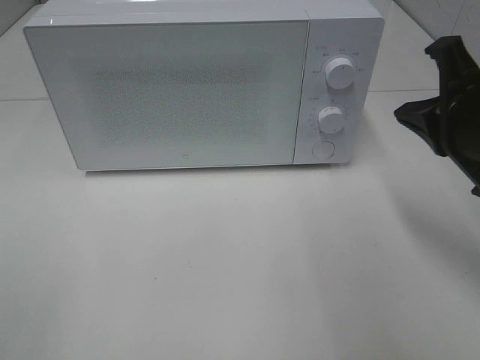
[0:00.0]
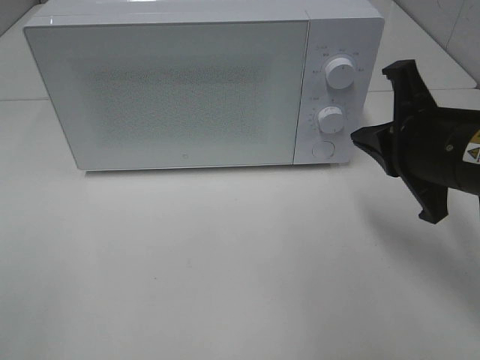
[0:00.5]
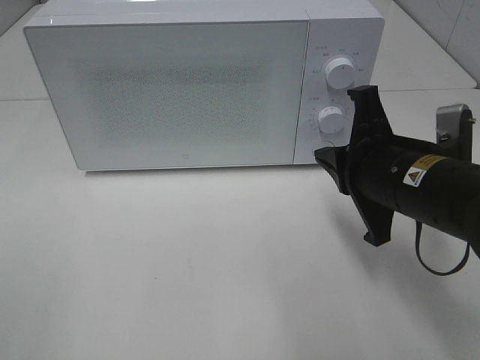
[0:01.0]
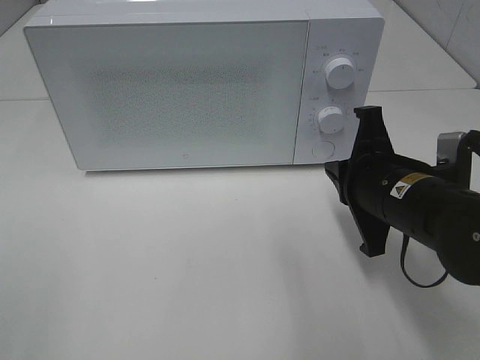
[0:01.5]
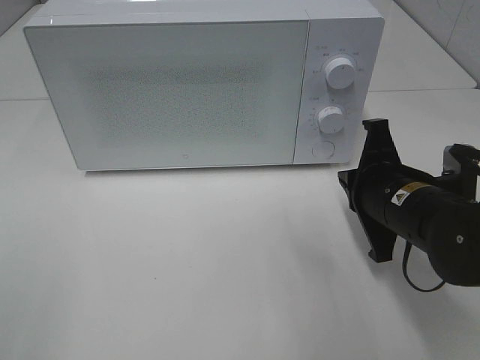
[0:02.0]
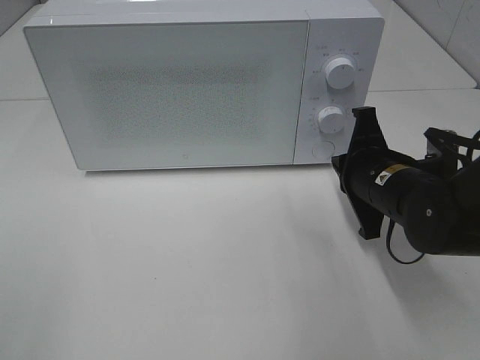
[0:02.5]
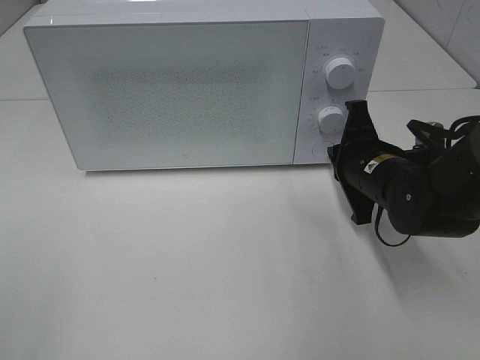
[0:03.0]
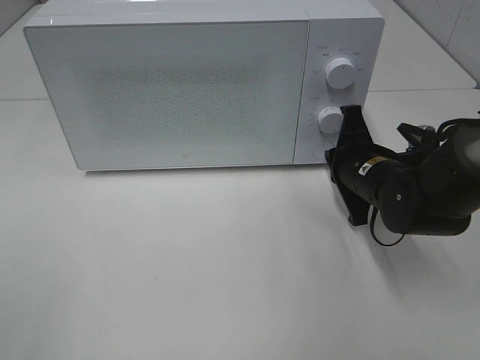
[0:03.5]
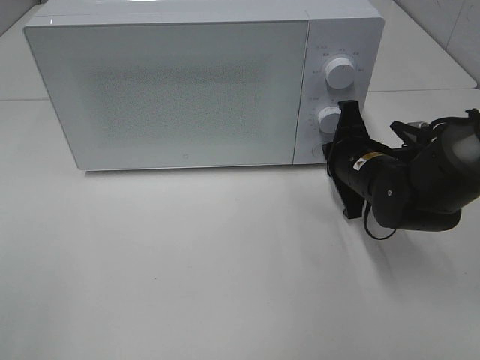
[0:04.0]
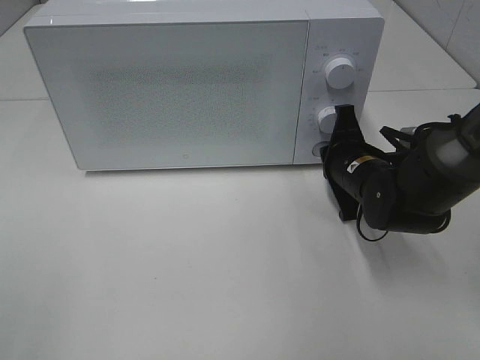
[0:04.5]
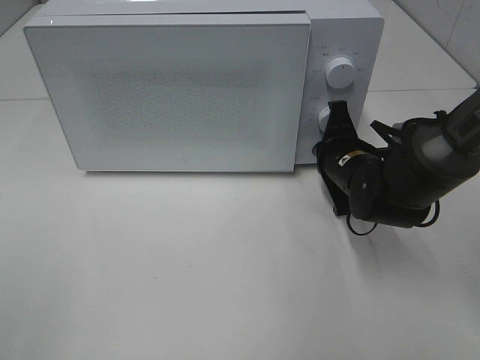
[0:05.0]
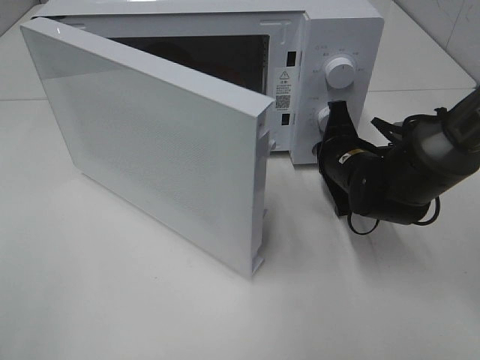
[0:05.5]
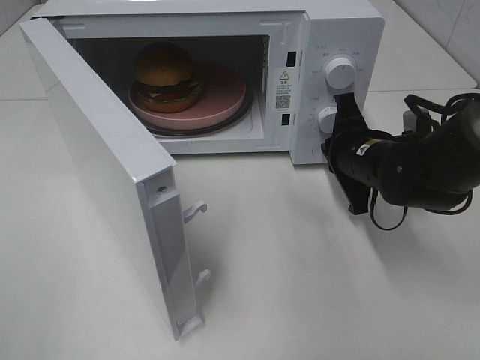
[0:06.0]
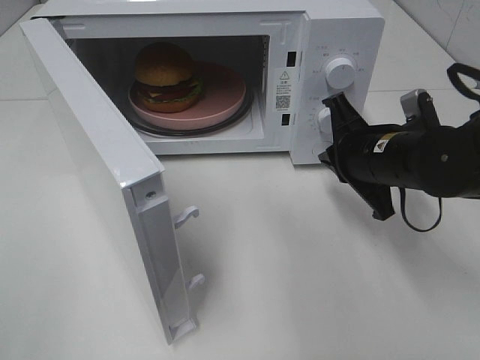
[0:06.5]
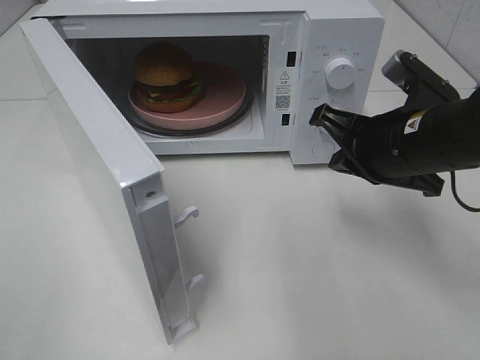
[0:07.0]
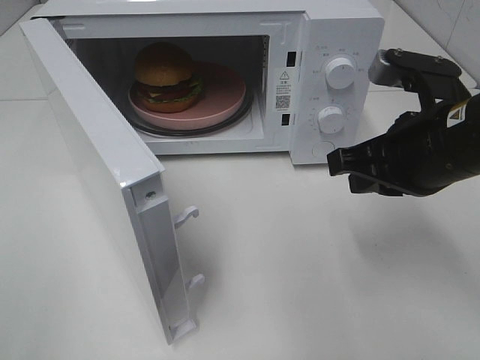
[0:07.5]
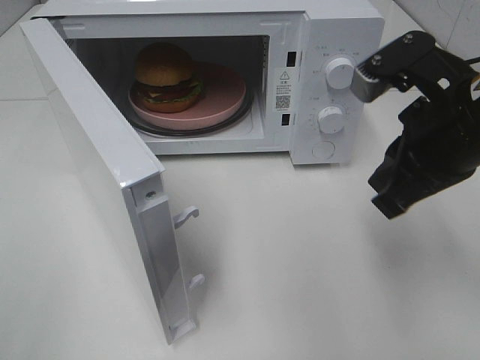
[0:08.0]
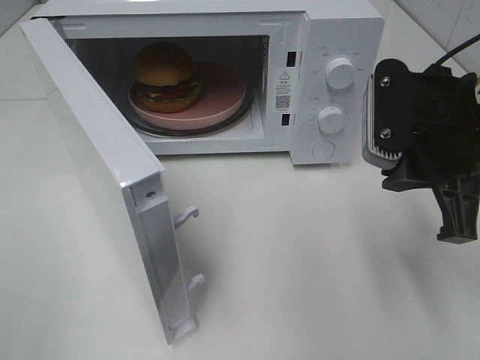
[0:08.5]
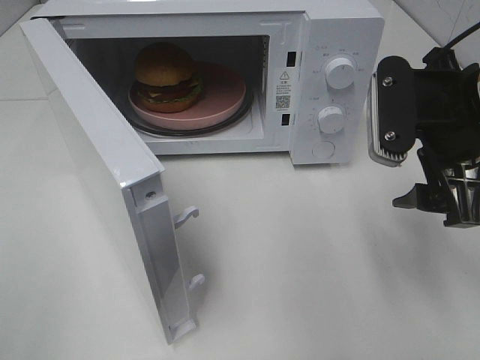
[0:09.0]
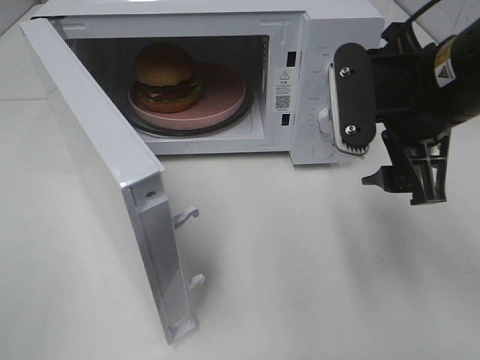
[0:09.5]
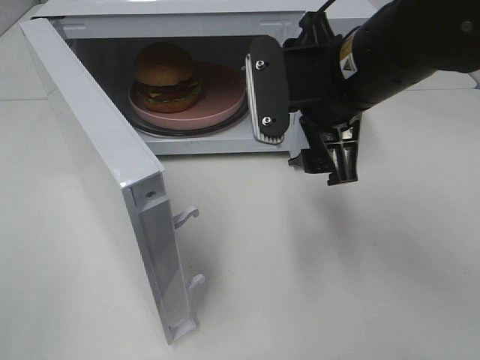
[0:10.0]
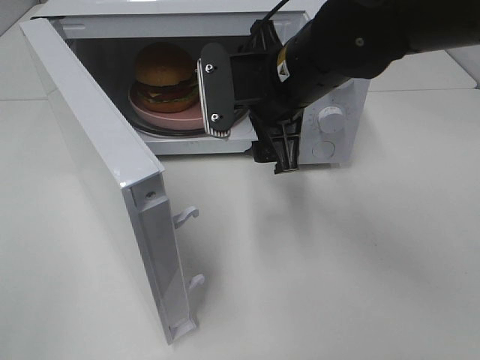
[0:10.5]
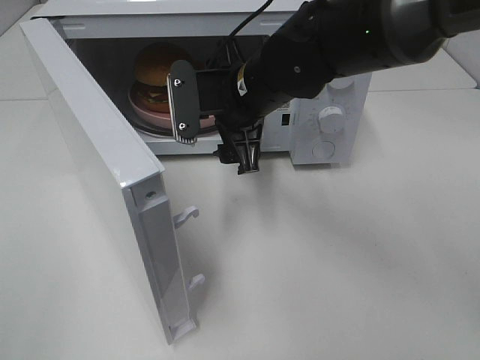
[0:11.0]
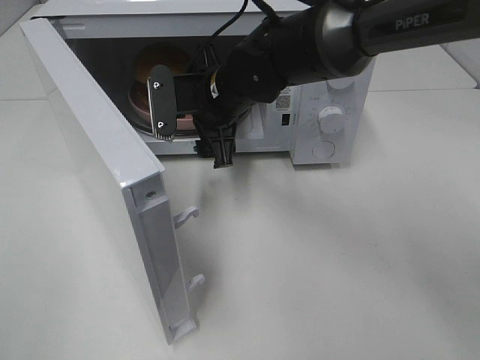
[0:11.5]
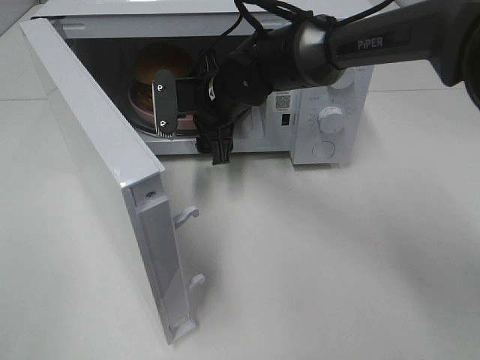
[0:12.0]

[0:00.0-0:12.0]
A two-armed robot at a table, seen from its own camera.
Task of the whole recording: Heat the burger.
Step, 0:00.0 to 0:05.5: Right hand: press the switch.
0:00.0 to 0:02.0: The right gripper moves downward and to the left, about 10 cm.
0:02.0 to 0:04.0: The right gripper heads forward, covering about 10 cm.
0:06.0 to 0:08.0: The right gripper is displaced upward and backward by roughly 15 cm.
0:08.0 to 0:10.0: The right gripper heads to the left, covering approximately 10 cm, and opens its fingers.
0:10.0 to 0:12.0: The right gripper goes about 20 cm forward, downward and to the left.

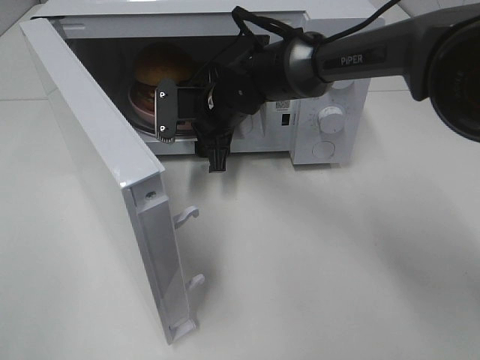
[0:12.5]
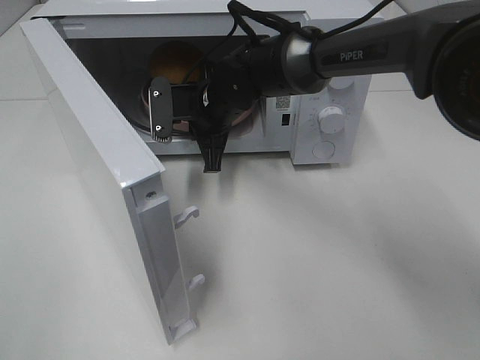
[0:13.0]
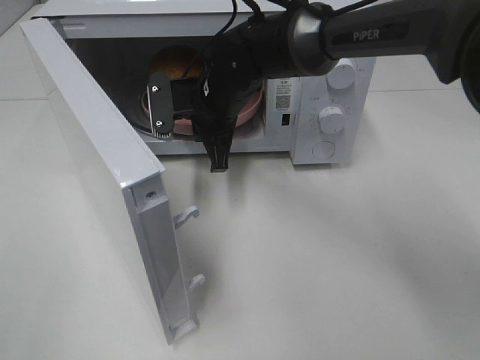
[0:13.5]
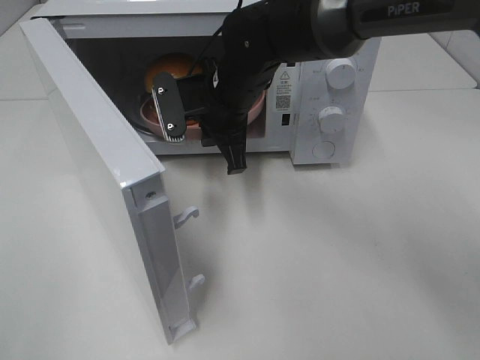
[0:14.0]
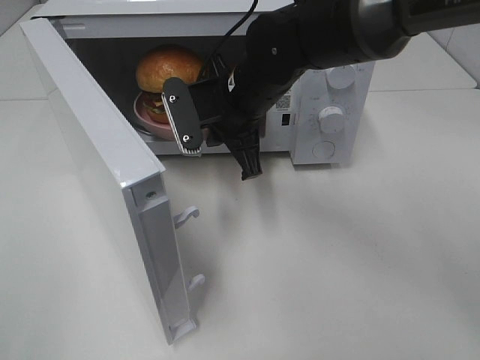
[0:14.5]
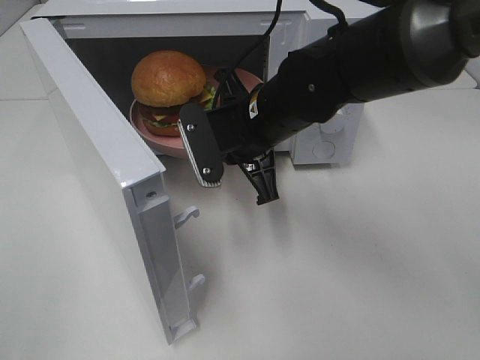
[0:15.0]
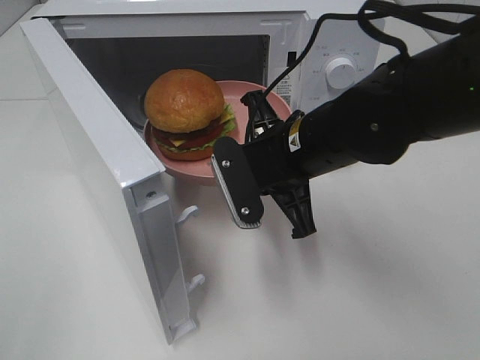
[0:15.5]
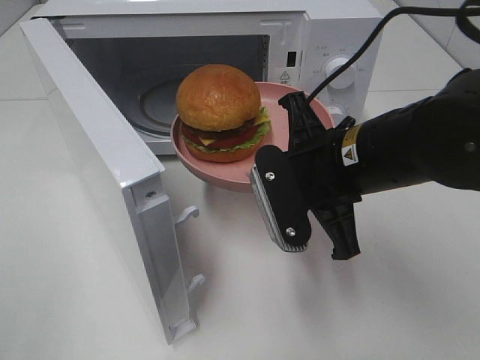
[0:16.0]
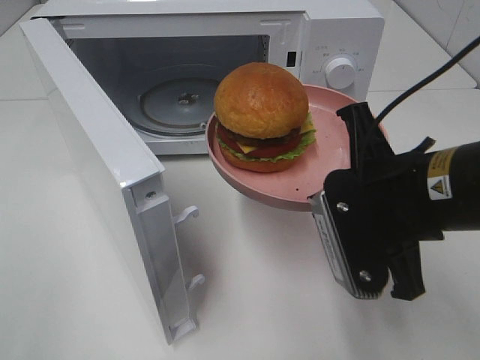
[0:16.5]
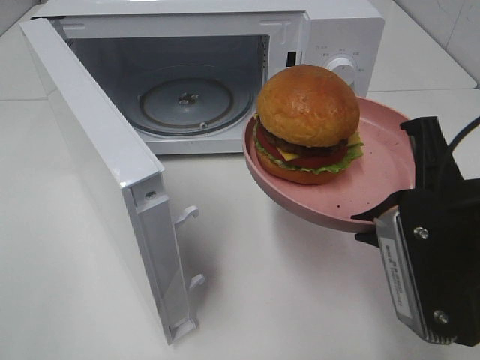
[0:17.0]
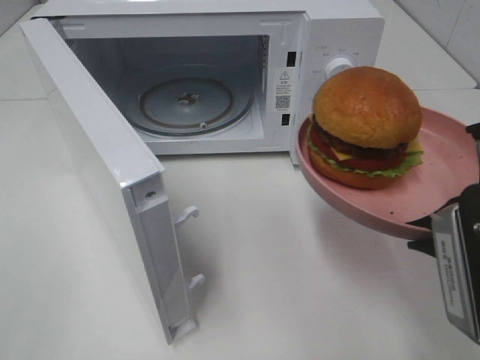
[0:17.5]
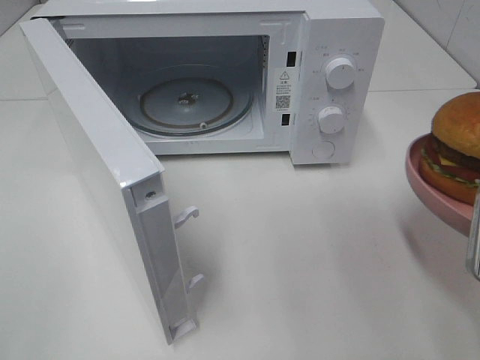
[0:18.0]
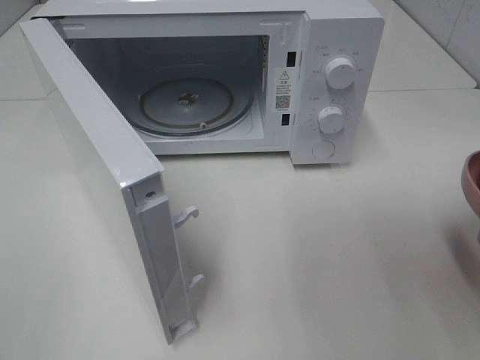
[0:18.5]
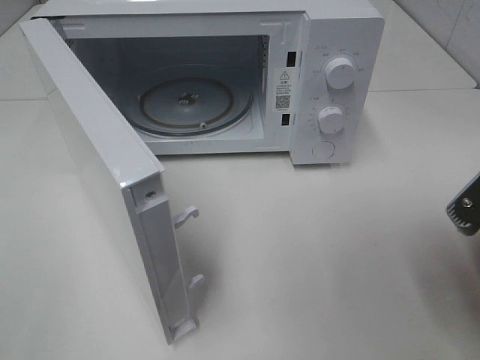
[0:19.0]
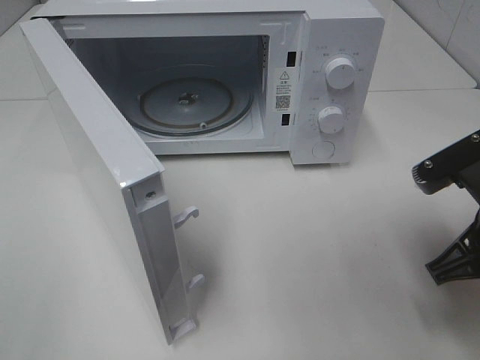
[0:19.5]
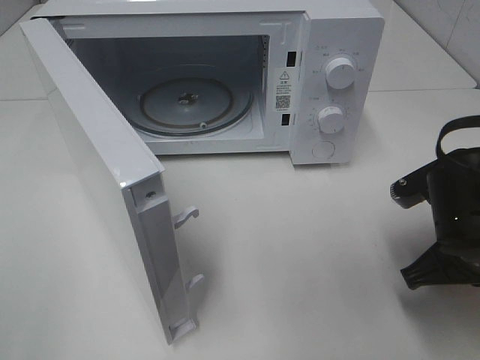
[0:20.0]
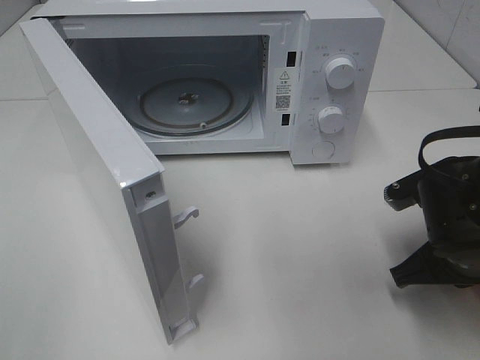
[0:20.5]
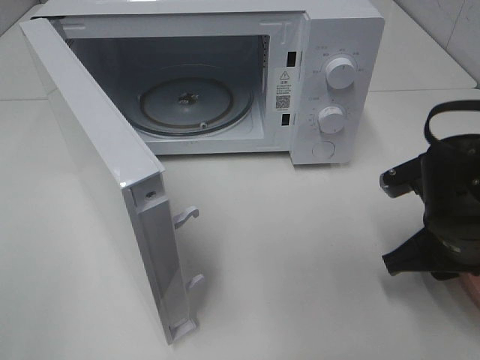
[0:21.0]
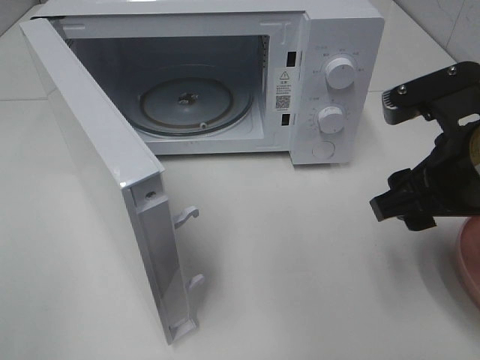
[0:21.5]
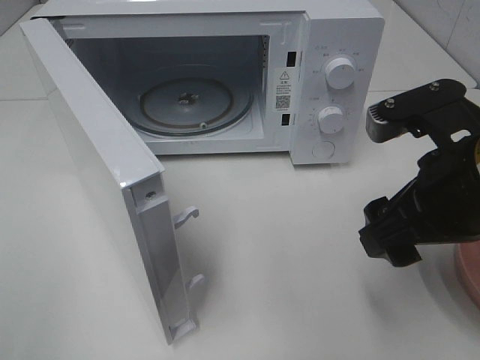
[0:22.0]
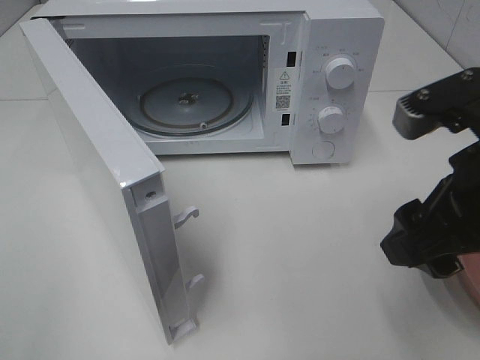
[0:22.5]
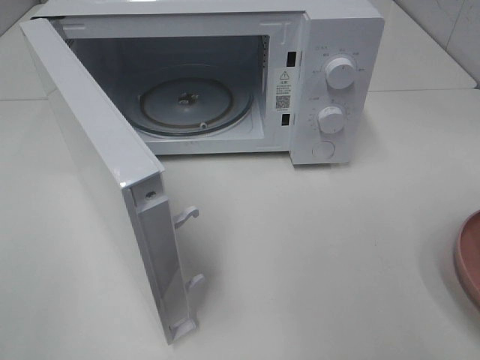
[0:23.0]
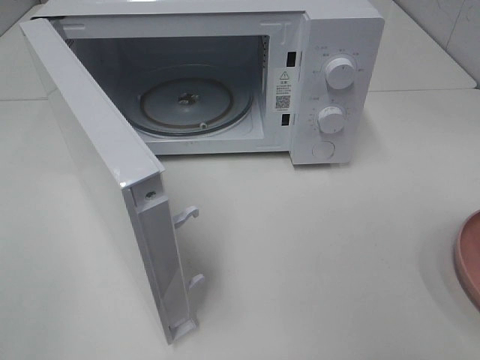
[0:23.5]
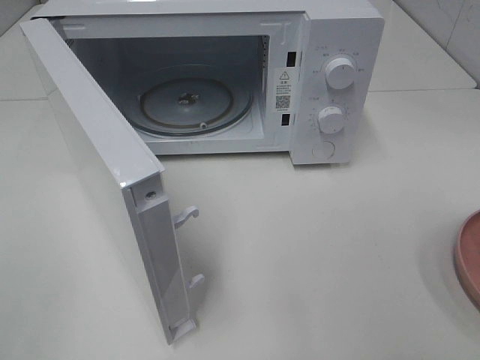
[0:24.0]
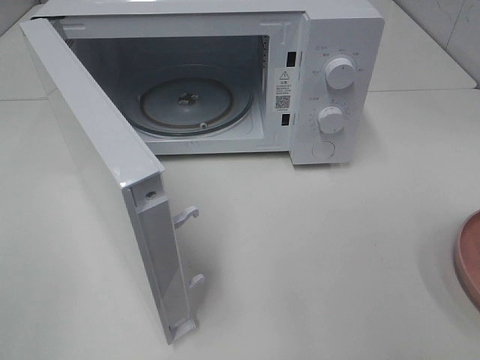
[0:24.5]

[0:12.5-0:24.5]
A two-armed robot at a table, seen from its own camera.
Task of the whole recording: Heat the burger.
Step, 0:13.5 to 0:20.5: Right hand: place the plate on the table.
0:12.5 to 0:14.5: The right gripper is displaced backward and upward by approximately 10 cm, and closes.
0:14.5 to 0:16.5: The right gripper moves backward and to the right, approximately 20 cm.
0:16.5 to 0:18.5: The right gripper is displaced to the right and backward by roughly 10 cm.
0:18.5 to 0:20.5: The right gripper moves downward and forward, some 15 cm.
0:20.5 to 0:22.5: The right gripper moves upward, about 15 cm, and opens.
0:22.5 to 0:24.5: The right gripper goes about 20 cm backward and to the right.

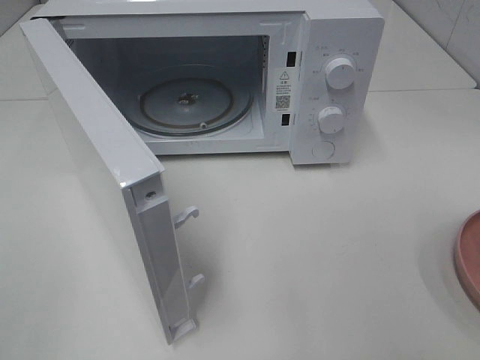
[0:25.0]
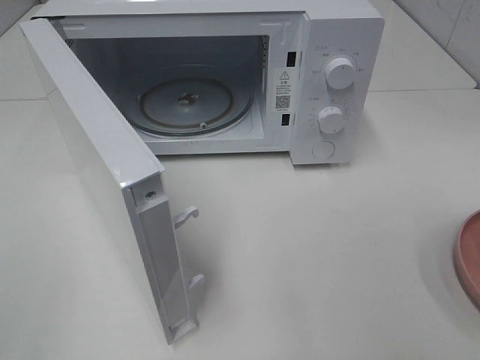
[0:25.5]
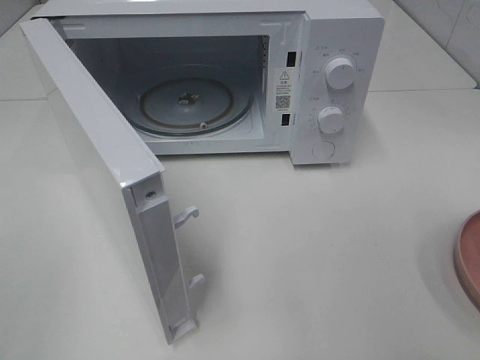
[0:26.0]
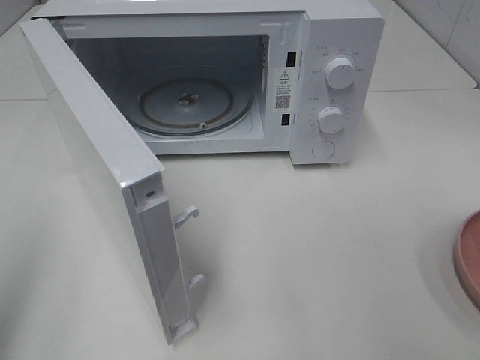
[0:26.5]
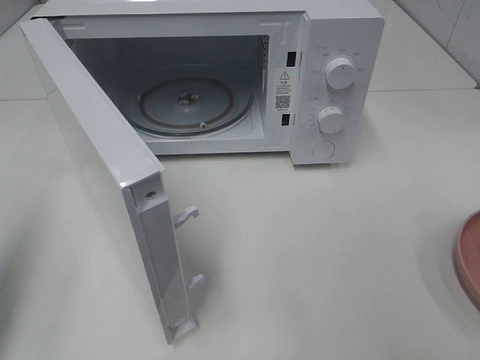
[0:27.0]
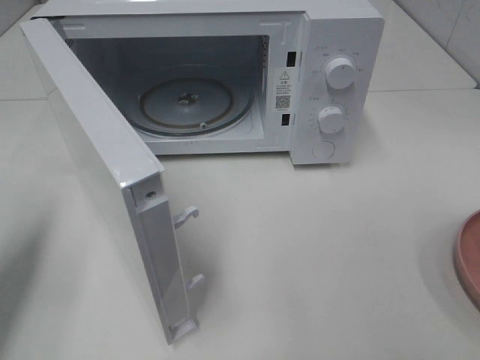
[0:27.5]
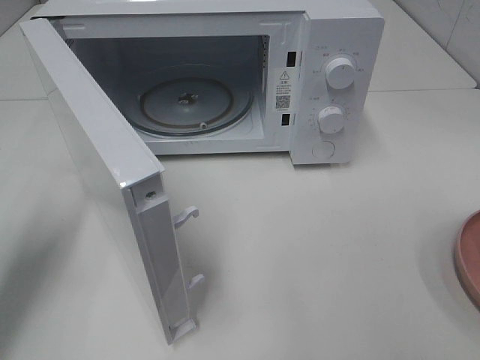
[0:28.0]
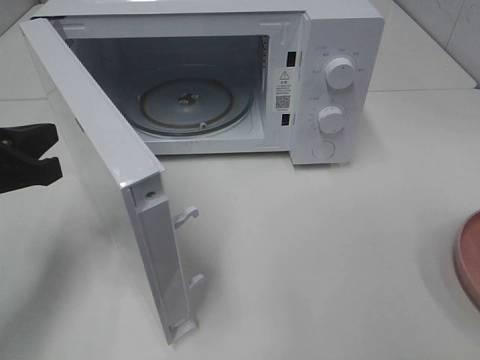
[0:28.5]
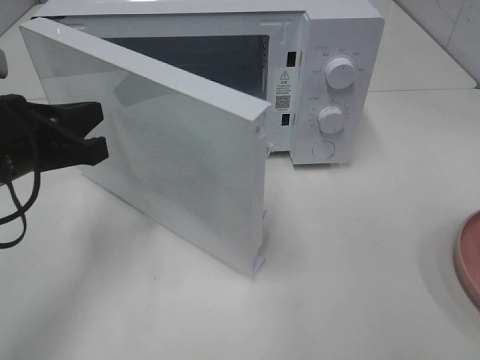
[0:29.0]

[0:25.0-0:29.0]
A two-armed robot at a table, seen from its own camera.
Task of the whole recording: Heat the burger.
0:25.0 to 0:27.0: The left gripper moves forward, some 15 cm, and closes.
0:27.0 to 0:29.0: The left gripper shifts roughly 15 cm to the right, forward and downward.
